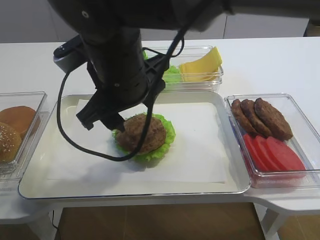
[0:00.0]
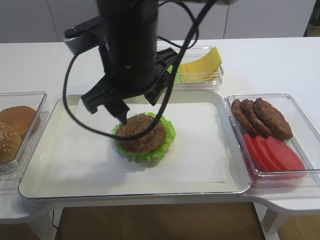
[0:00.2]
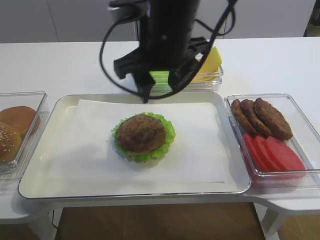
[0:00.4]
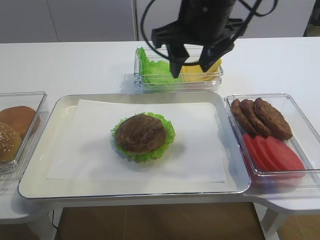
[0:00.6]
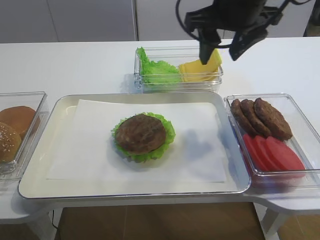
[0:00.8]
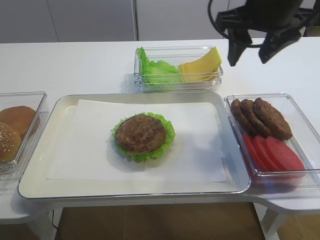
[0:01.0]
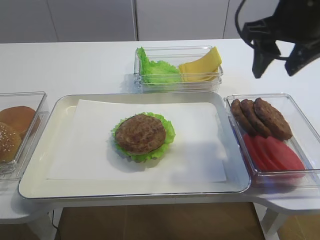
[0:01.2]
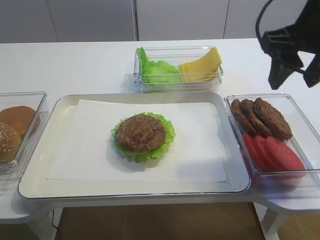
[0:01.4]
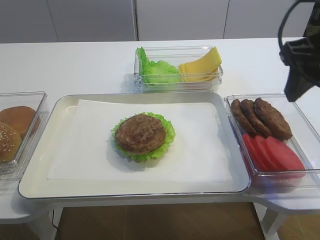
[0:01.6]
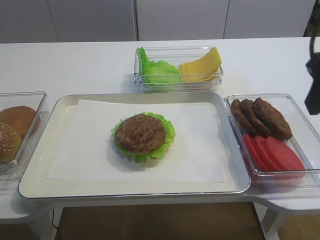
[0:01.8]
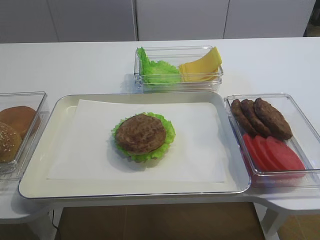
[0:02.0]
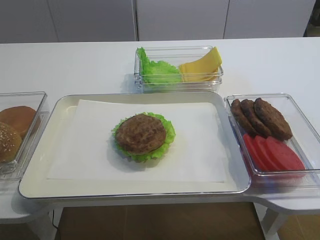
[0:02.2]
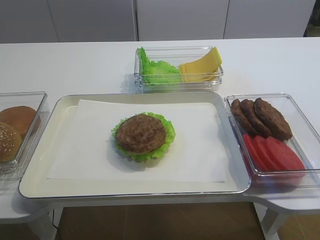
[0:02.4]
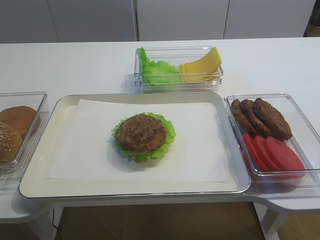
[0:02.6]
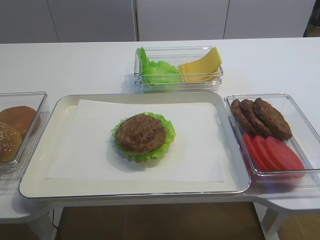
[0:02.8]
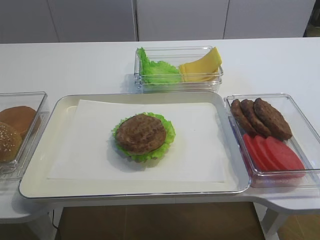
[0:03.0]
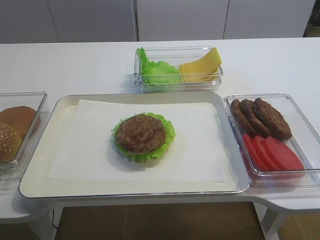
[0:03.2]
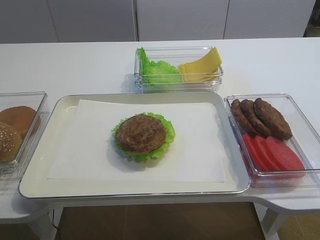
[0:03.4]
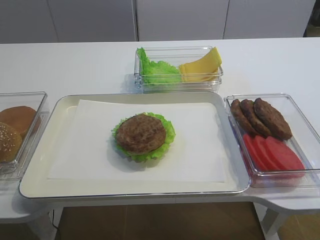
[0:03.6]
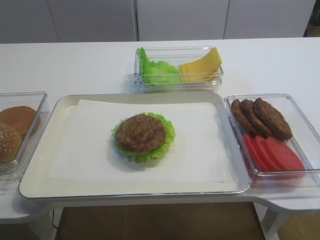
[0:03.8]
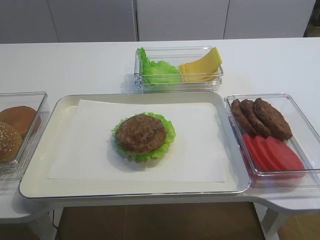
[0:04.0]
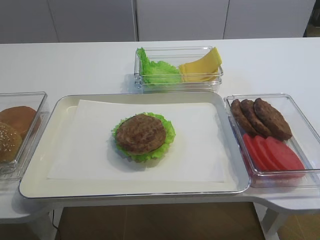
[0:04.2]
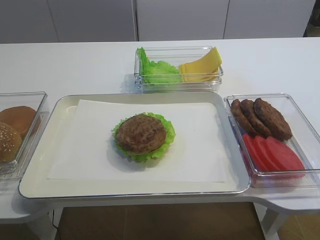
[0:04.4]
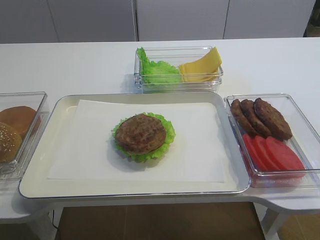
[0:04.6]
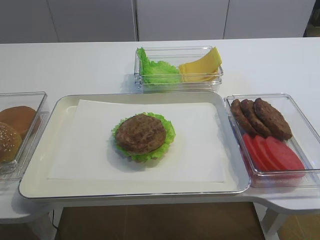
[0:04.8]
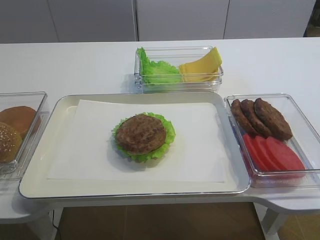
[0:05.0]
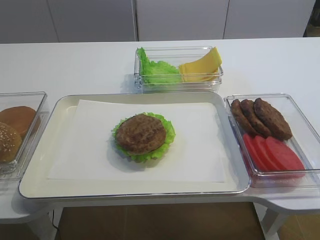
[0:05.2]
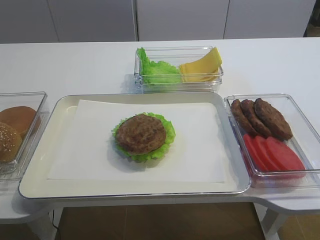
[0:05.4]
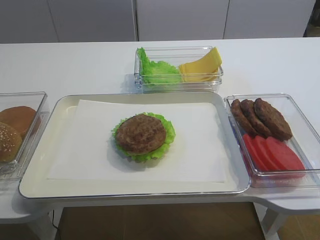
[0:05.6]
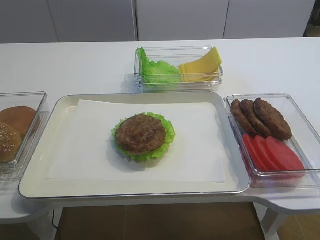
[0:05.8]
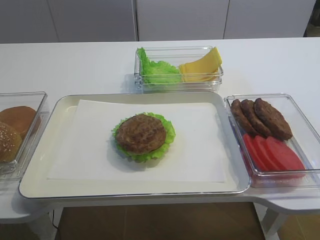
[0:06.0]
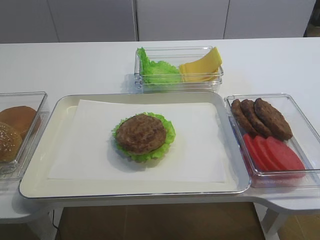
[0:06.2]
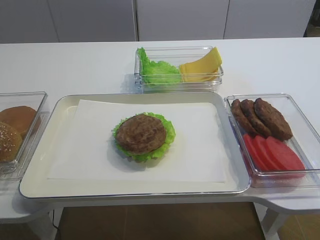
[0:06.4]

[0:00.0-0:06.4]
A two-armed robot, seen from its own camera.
0.0 to 1.6 s: The right gripper is displaced to the right by about 25 cm.
1.6 to 3.2 s: The right gripper shifts approximately 25 cm backward.
4.8 to 6.4 s: The two grippers keep their place.

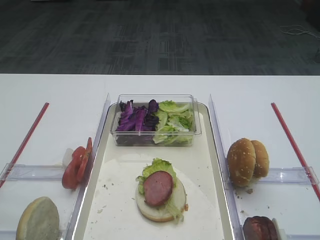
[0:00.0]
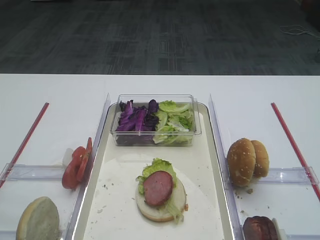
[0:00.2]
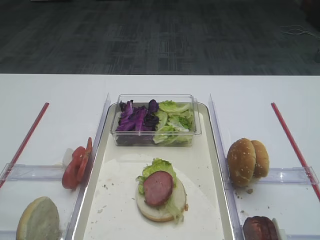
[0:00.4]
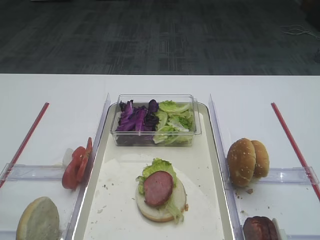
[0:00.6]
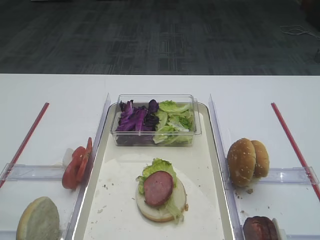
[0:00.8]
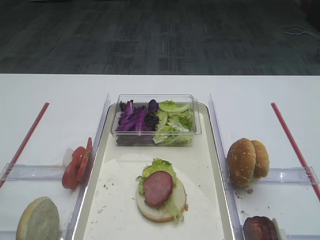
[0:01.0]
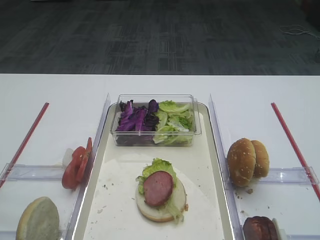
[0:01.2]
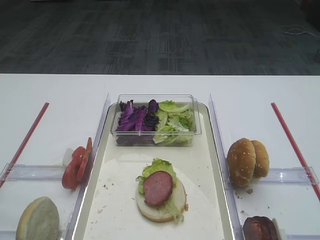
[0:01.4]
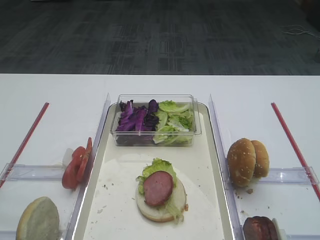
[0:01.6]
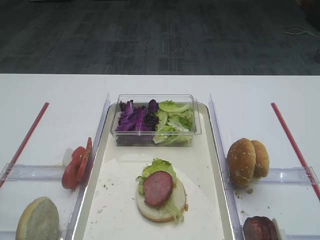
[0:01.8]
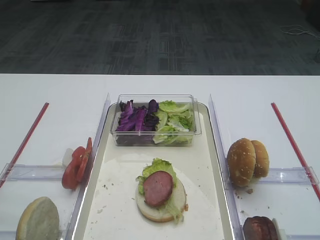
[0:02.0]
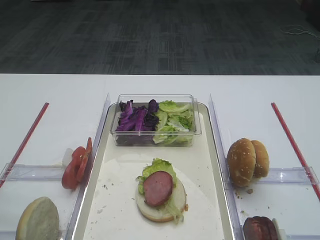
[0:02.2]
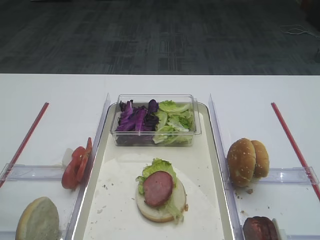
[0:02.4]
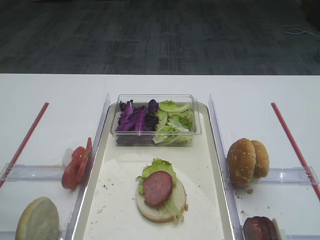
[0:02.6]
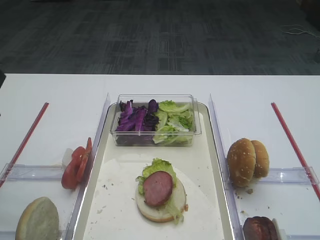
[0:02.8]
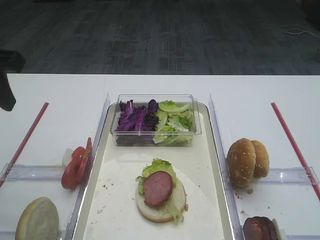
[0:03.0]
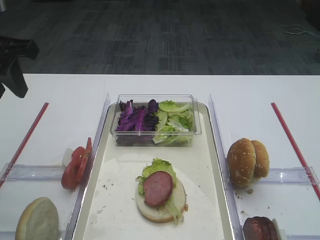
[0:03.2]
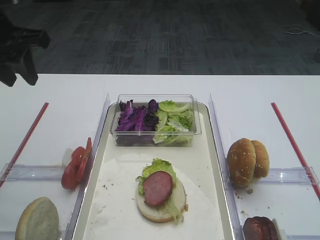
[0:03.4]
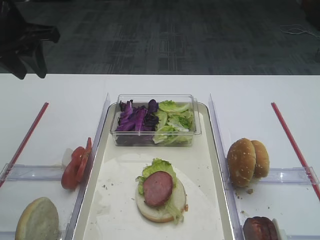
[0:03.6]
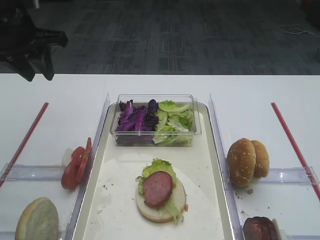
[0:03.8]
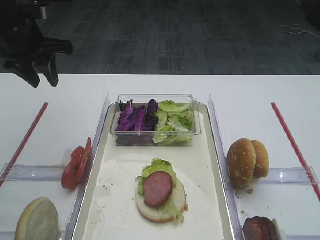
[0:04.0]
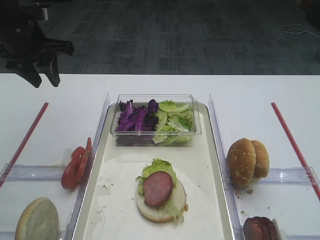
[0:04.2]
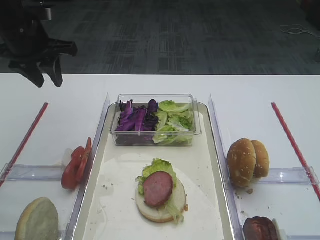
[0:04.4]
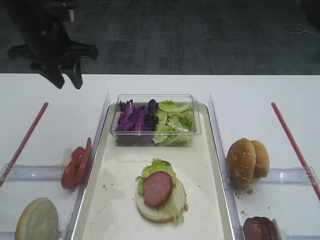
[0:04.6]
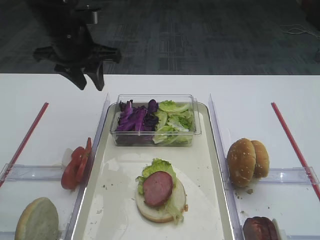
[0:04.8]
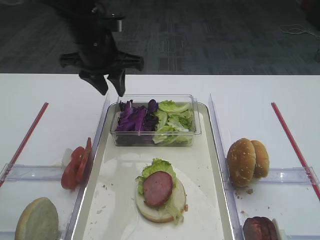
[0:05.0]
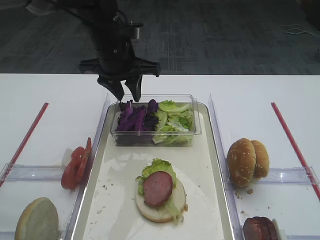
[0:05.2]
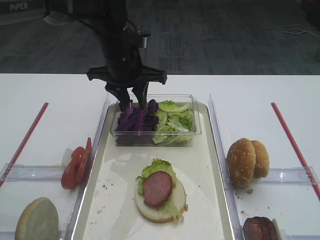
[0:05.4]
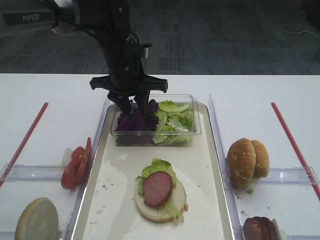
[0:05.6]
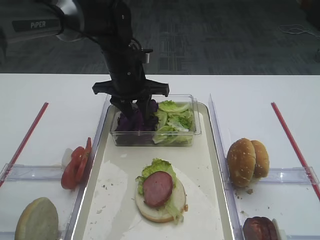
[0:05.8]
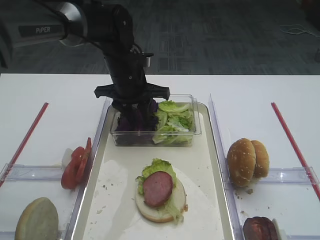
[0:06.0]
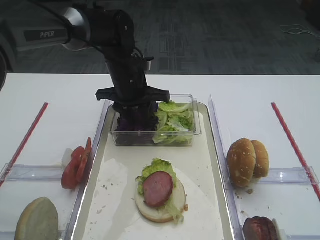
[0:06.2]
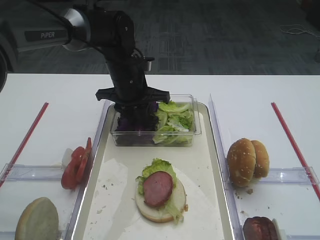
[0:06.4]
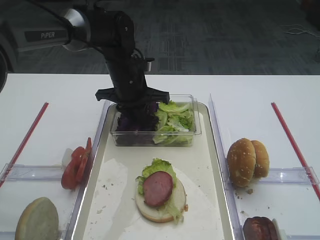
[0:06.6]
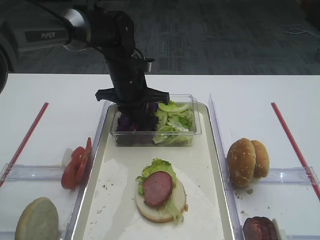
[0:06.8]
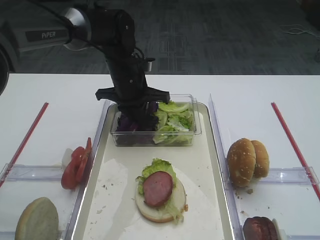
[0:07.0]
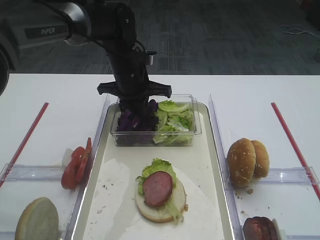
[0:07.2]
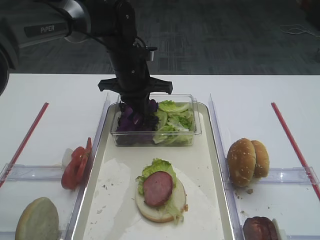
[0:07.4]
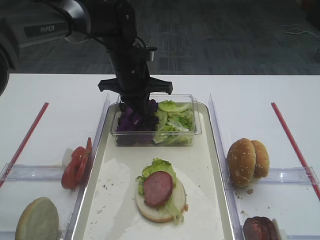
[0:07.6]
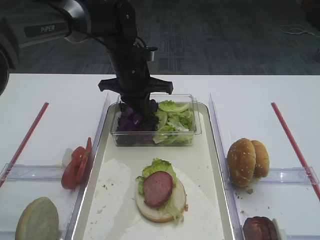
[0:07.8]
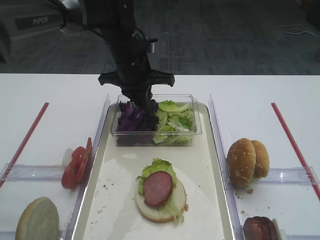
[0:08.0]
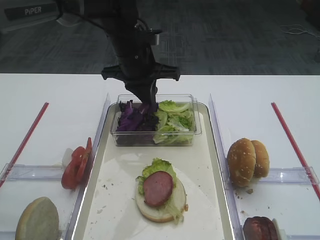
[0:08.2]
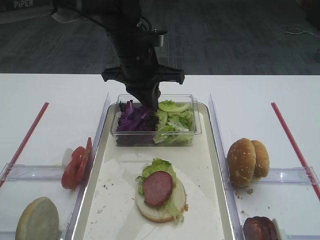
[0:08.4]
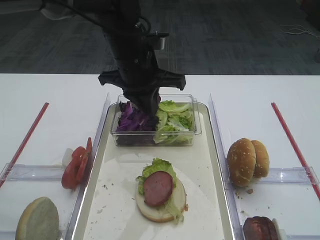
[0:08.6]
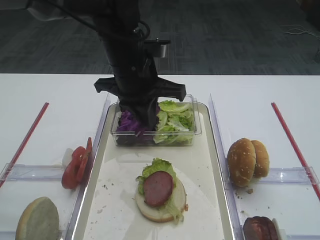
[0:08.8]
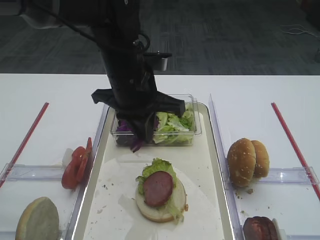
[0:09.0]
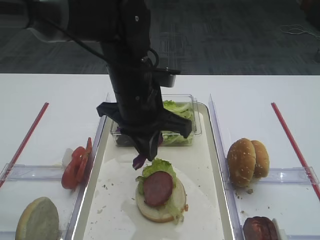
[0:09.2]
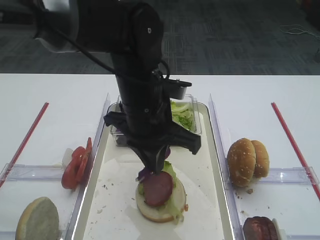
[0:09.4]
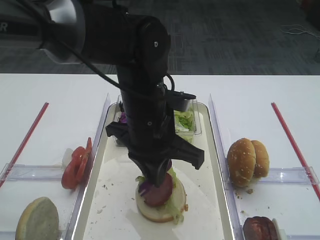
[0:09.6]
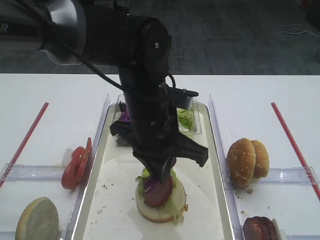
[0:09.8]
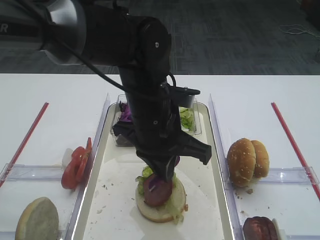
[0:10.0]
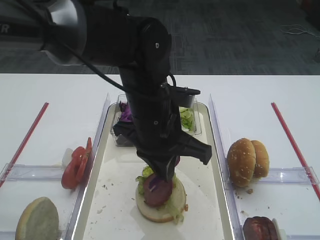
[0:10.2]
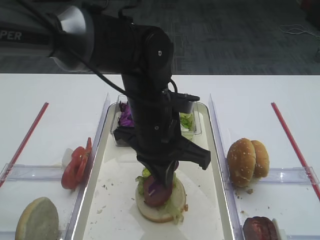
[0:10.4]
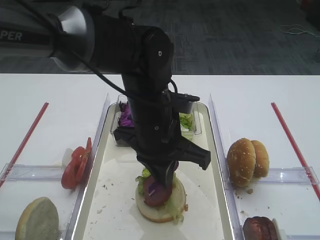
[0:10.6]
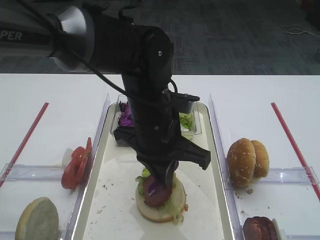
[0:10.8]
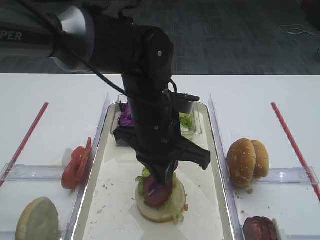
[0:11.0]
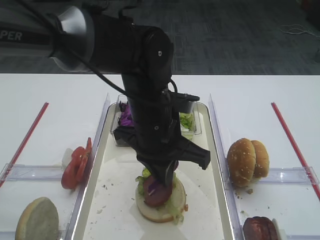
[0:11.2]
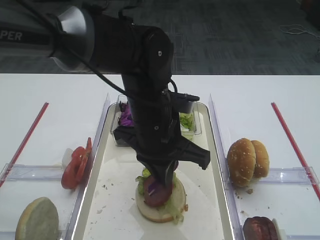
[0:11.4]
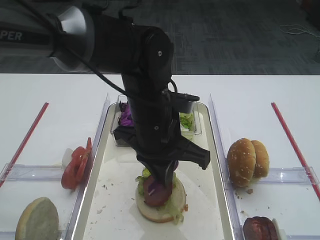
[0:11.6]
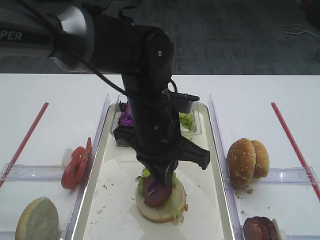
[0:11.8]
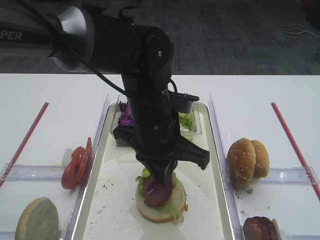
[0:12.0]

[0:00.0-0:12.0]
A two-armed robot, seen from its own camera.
Step, 0.0 to 8.4 s: Pick up the purple cabbage with the left gripper.
1.6 to 3.0 s: The left gripper travels forward by roughly 25 cm.
3.0 to 4.4 s: The left gripper is displaced forward by roughly 15 cm.
4.4 to 6.0 s: The left gripper is displaced to the right and downward by approximately 20 cm.
6.0 to 7.6 s: The left gripper closes up.
7.6 to 9.0 s: The left gripper is displaced backward by roughly 10 cm.
9.0 to 10.4 s: The left gripper changes place by roughly 5 cm.
10.4 to 12.0 s: The two grippers keep their place.

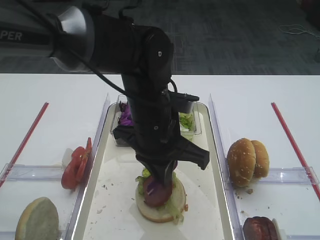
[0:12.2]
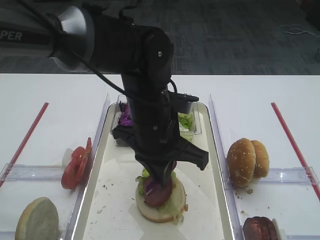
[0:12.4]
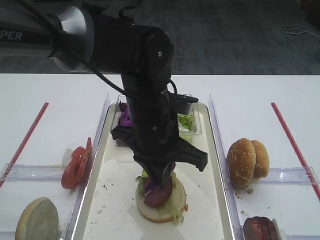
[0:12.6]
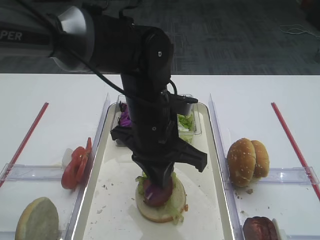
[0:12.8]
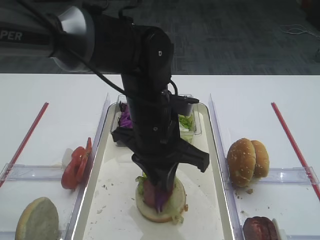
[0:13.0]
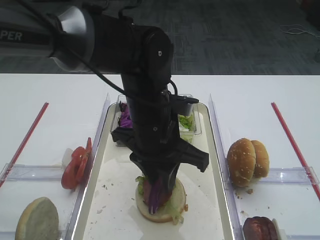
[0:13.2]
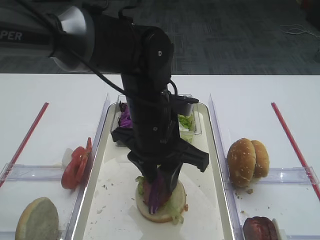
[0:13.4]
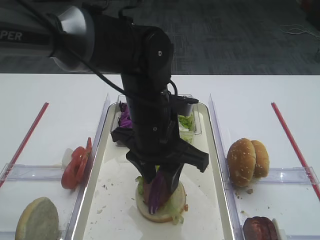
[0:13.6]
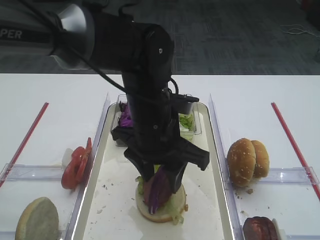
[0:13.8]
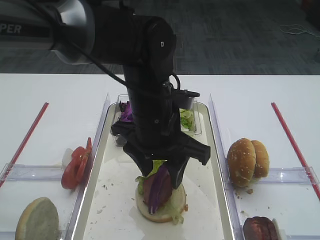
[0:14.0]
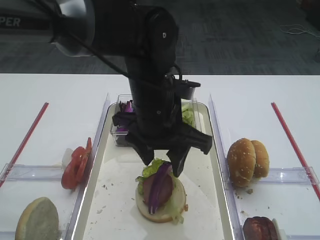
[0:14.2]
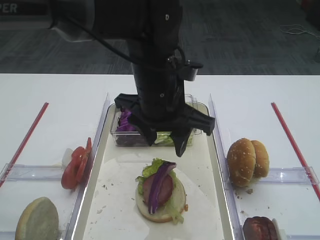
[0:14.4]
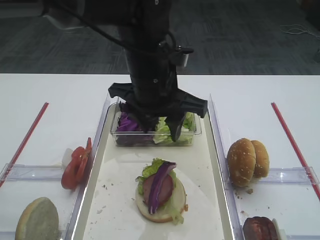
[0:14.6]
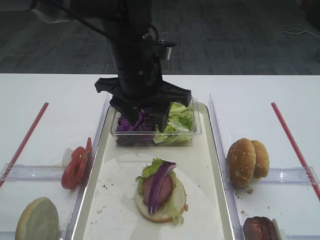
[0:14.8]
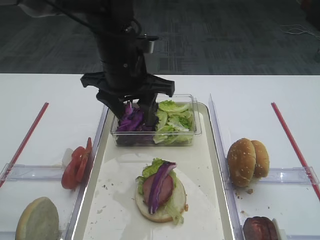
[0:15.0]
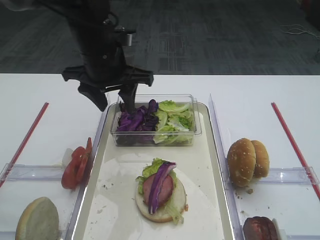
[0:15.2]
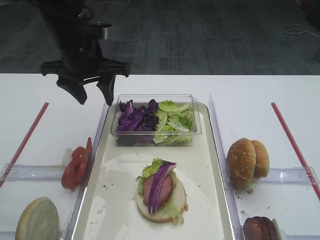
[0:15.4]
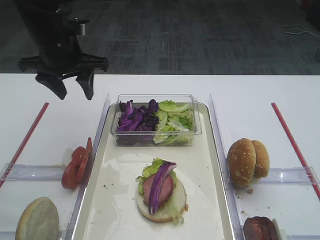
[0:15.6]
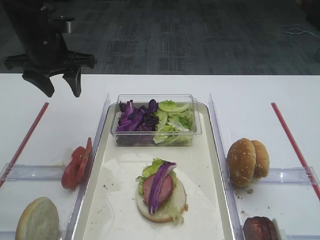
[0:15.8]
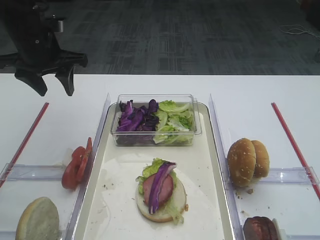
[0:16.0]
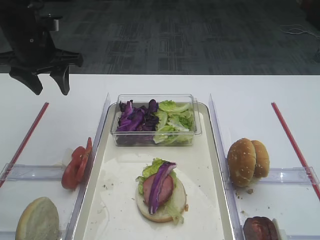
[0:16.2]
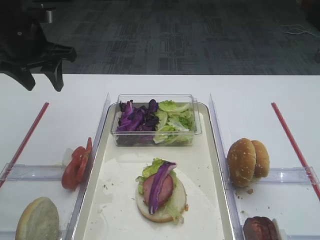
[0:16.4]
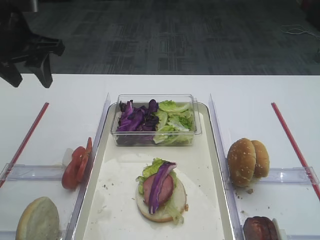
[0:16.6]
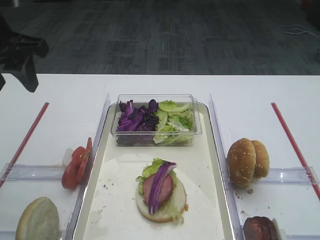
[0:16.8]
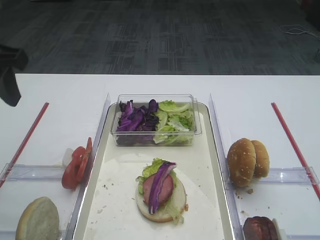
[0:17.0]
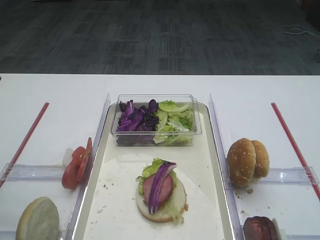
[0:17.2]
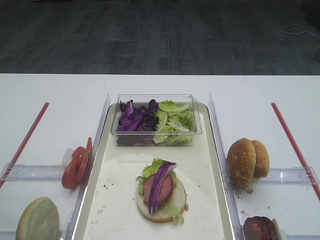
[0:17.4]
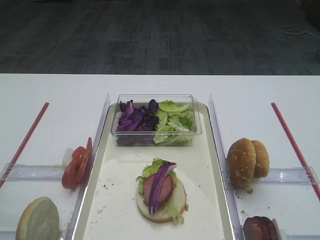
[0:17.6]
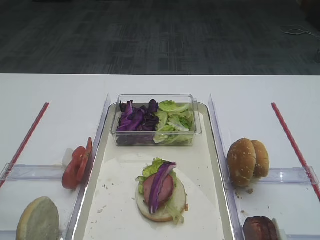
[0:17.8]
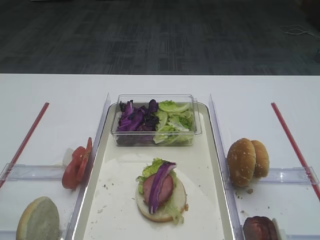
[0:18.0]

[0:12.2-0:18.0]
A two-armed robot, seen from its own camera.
Step, 12.2 to 14.2 s: Place the purple cabbage on the cutlet with the left gripper.
12.2 to 13.6 s: The left gripper opens its fingers.
13.6 to 15.0 s: The left gripper shifts approximately 10 cm forward, to the left and upward.
15.0 to 16.6 s: The left gripper goes approximately 15 cm to the left.
16.6 to 18.0 s: The left gripper shifts approximately 30 cm backward.
